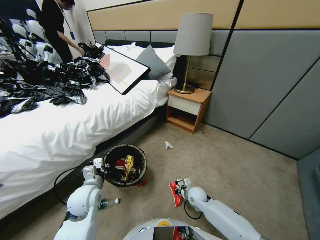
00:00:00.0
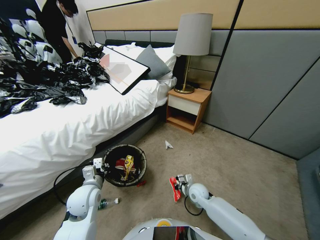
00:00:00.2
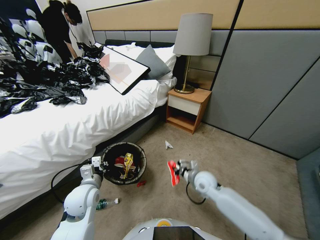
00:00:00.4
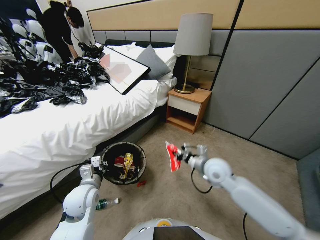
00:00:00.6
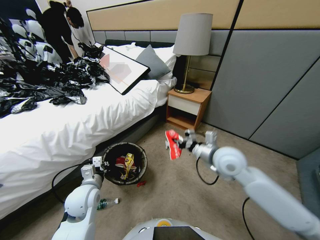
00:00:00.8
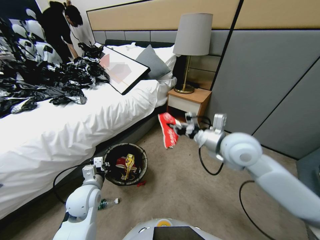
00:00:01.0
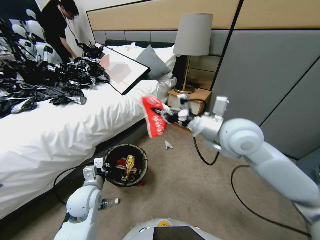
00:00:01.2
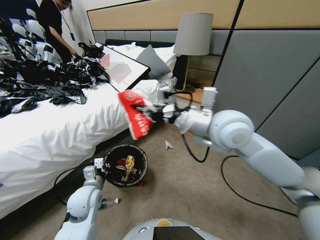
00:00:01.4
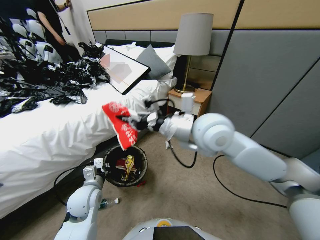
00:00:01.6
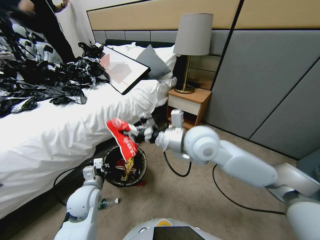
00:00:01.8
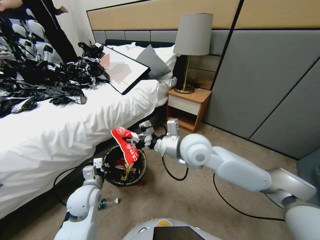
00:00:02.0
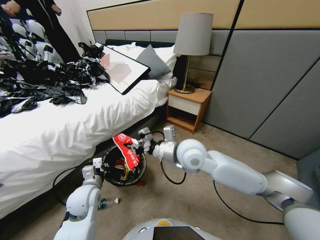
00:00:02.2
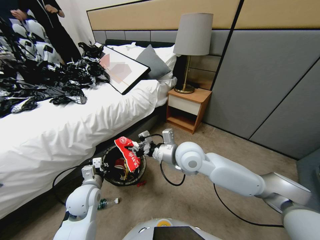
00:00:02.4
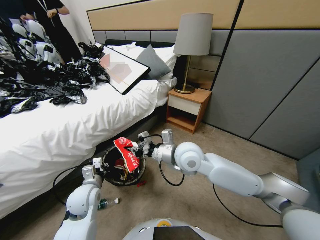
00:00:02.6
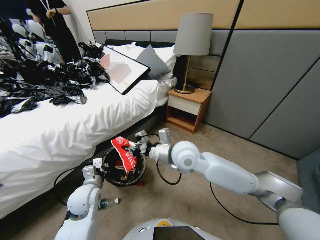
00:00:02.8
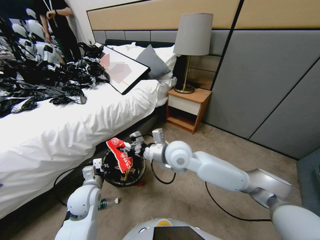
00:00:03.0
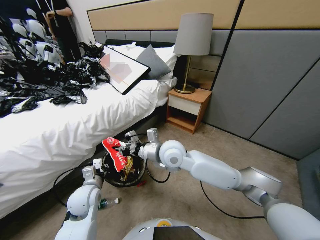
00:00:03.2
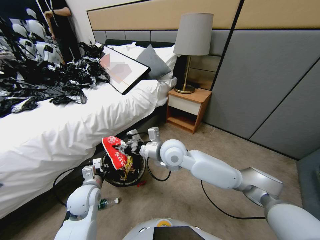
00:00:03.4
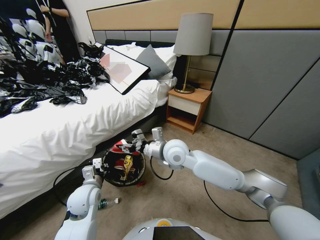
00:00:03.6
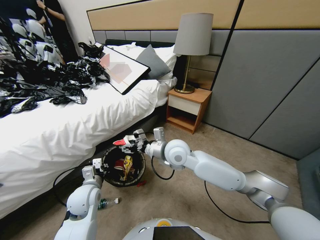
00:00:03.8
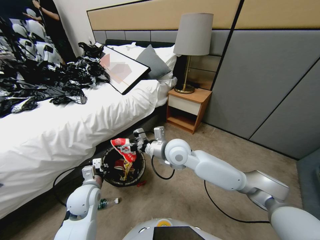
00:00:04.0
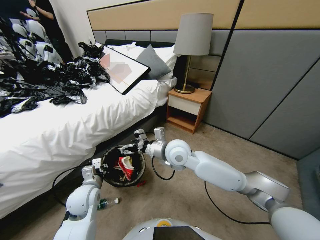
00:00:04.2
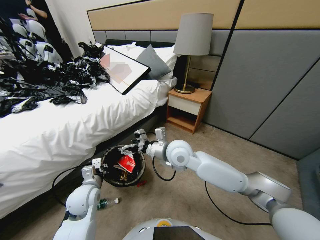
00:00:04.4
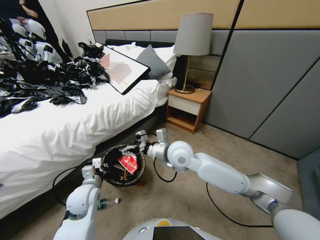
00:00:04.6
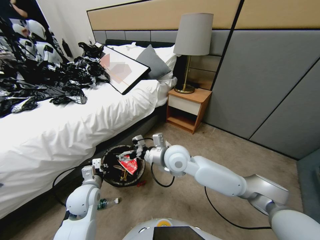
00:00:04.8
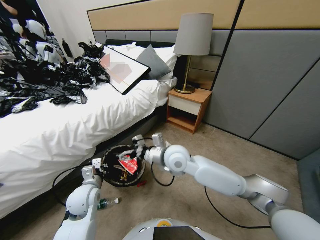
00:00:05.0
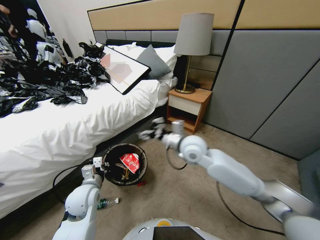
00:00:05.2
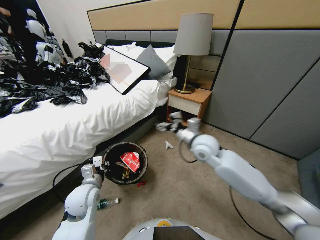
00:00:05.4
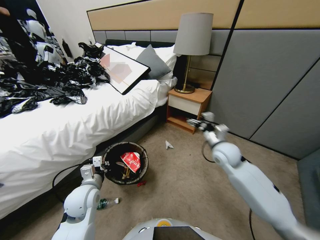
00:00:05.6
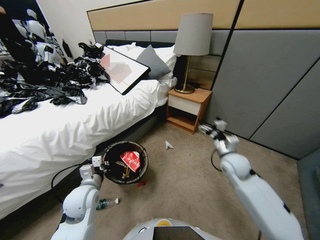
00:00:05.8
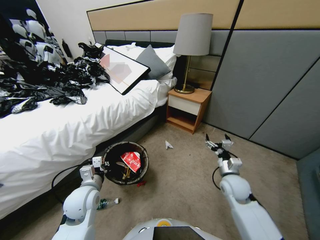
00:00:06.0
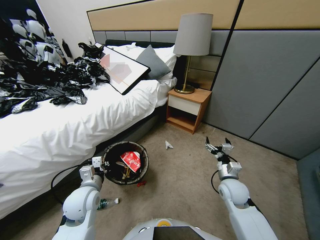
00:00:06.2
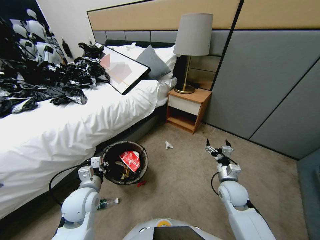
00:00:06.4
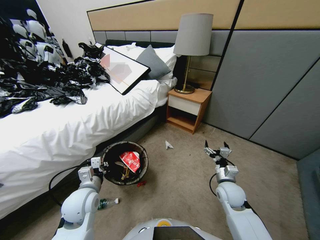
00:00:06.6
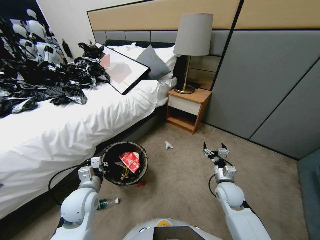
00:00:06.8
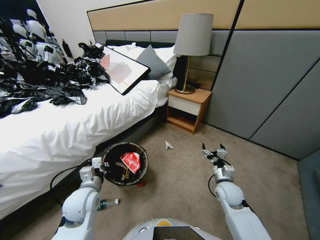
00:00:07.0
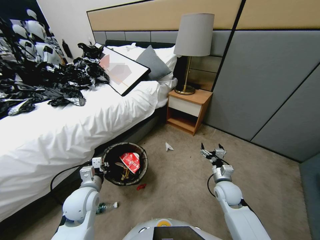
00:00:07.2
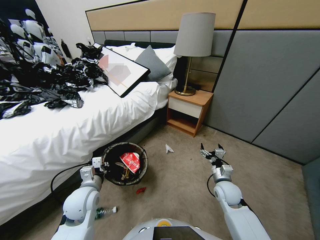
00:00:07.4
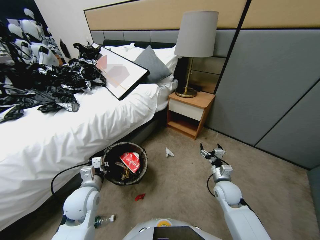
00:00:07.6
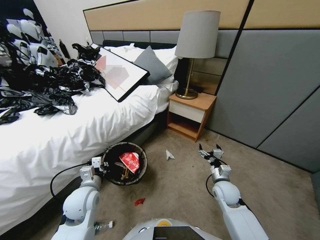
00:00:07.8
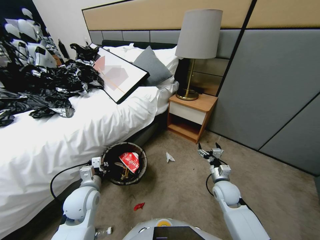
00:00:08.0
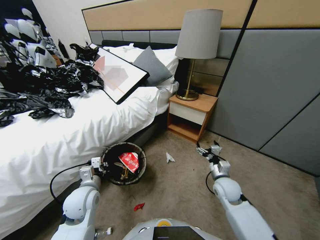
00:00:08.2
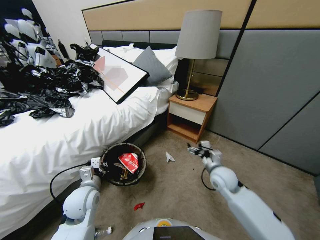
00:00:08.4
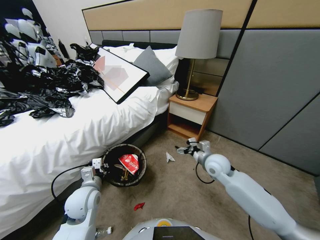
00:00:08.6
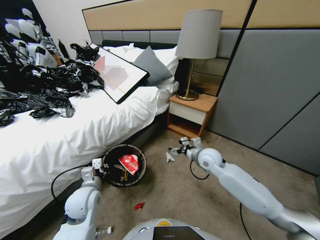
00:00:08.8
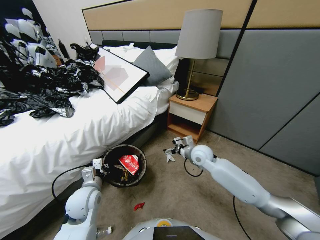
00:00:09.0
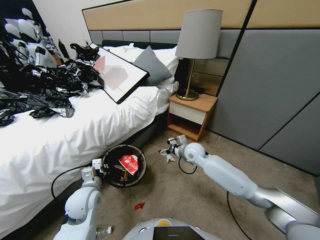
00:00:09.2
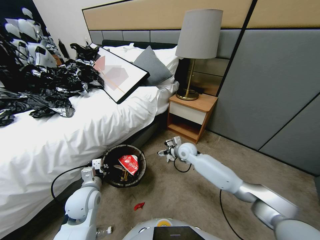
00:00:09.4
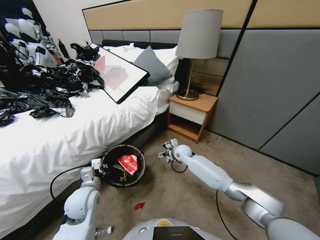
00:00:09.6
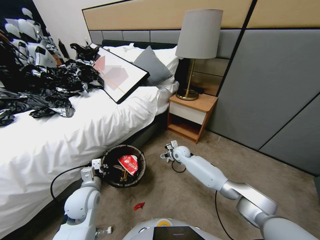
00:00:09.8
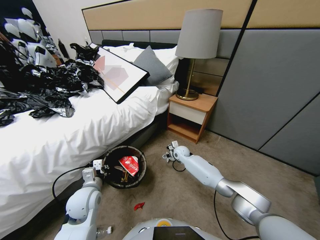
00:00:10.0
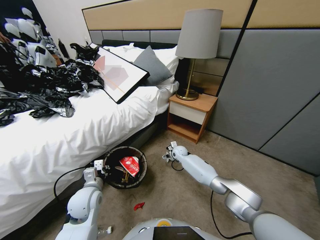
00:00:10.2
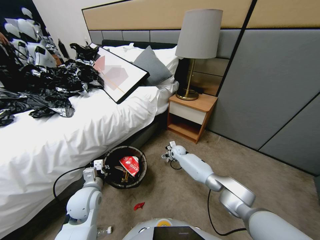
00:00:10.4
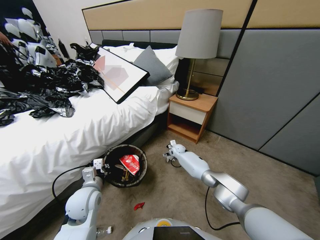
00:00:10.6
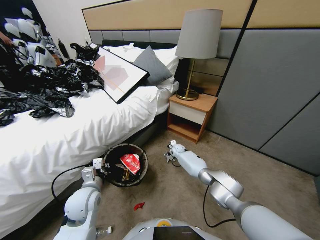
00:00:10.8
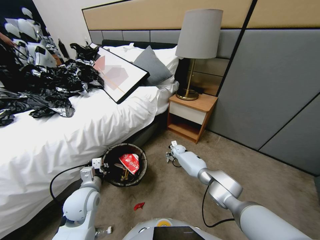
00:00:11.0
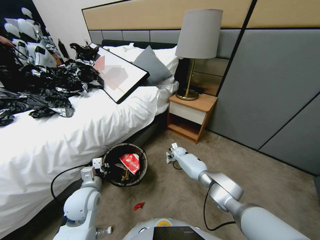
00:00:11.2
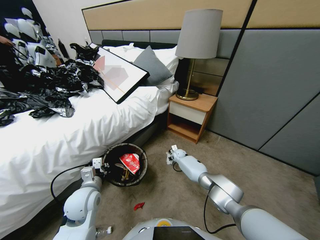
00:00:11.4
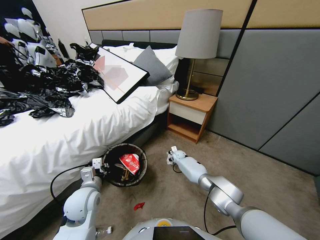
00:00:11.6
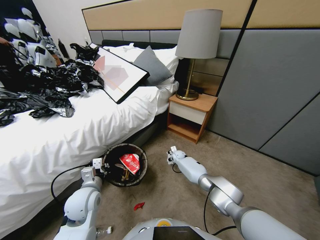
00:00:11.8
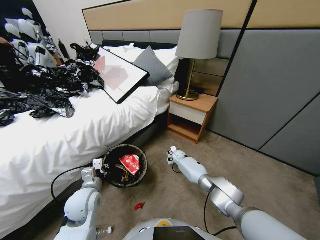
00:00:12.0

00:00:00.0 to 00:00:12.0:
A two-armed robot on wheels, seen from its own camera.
Task of the whole recording: Pick up the trash bin, then pick up the garbage from the floor and place it into the trash bin.
00:00:00.0 to 00:00:01.6: The right gripper moves upward, roughly 40 cm.
00:00:01.6 to 00:00:03.0: The right gripper heads downward and to the left, covering approximately 15 cm.
00:00:03.0 to 00:00:04.4: The right gripper opens up.
00:00:04.4 to 00:00:06.0: The right gripper travels to the right and downward by about 25 cm.
00:00:07.6 to 00:00:09.0: The right gripper travels forward, to the left and upward by about 20 cm.
00:00:09.0 to 00:00:10.4: The right gripper goes some 20 cm downward and forward.
00:00:10.4 to 00:00:12.0: The right gripper closes.

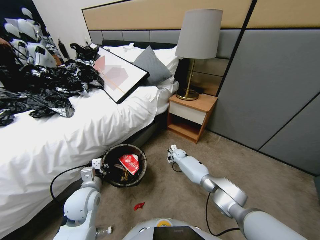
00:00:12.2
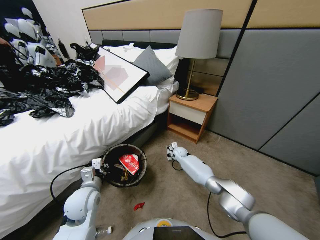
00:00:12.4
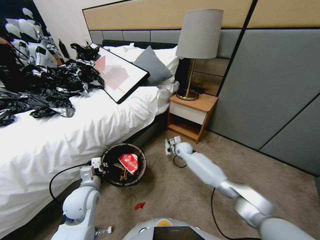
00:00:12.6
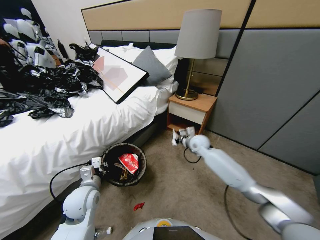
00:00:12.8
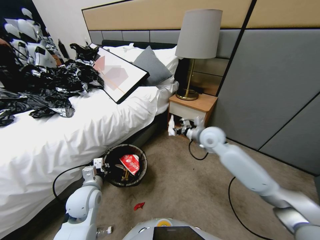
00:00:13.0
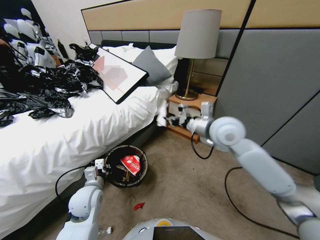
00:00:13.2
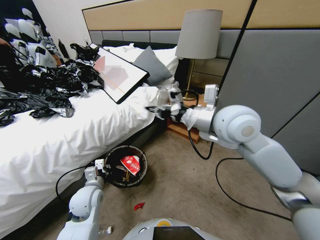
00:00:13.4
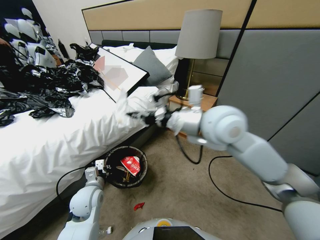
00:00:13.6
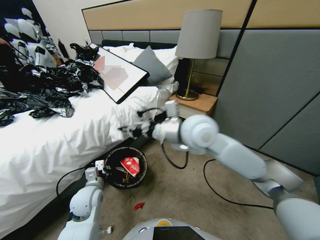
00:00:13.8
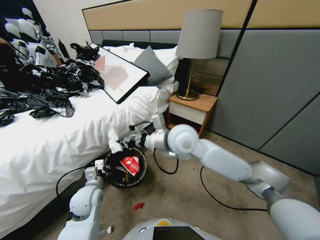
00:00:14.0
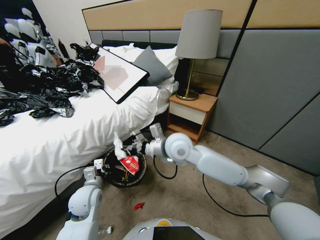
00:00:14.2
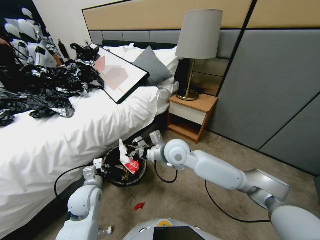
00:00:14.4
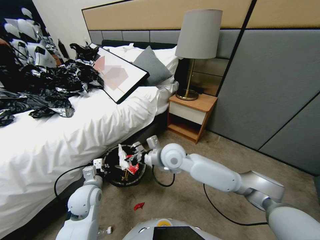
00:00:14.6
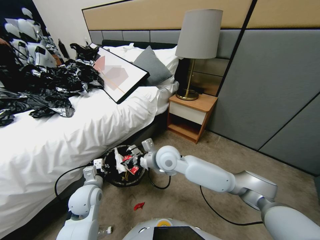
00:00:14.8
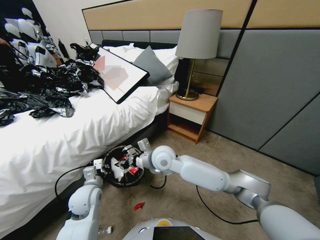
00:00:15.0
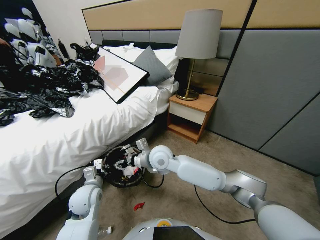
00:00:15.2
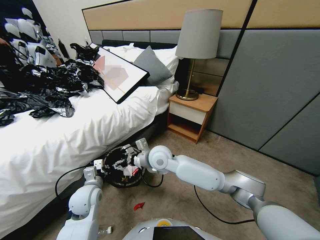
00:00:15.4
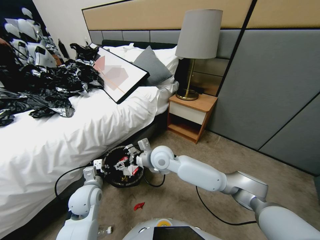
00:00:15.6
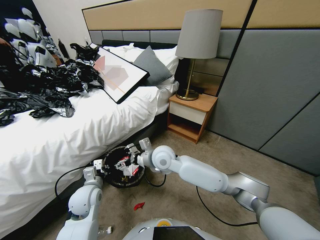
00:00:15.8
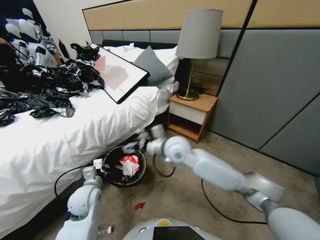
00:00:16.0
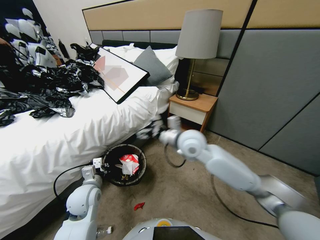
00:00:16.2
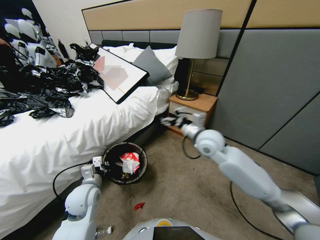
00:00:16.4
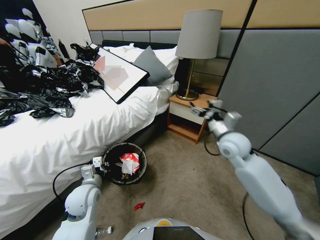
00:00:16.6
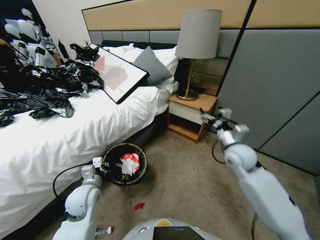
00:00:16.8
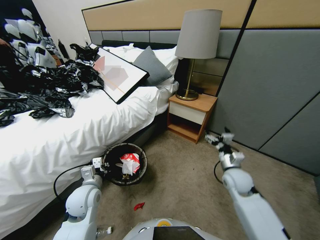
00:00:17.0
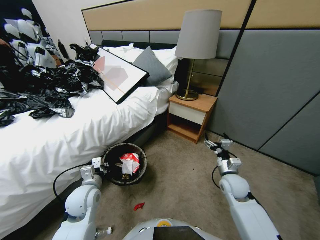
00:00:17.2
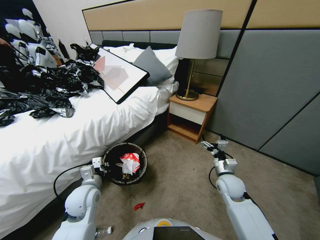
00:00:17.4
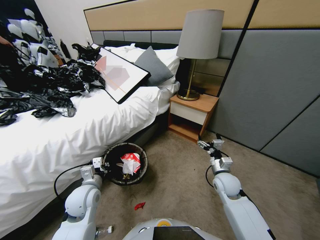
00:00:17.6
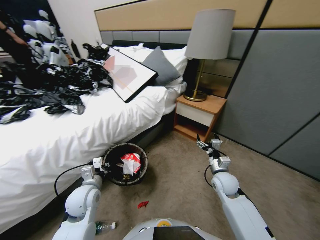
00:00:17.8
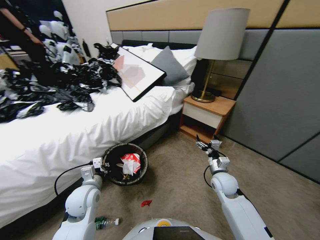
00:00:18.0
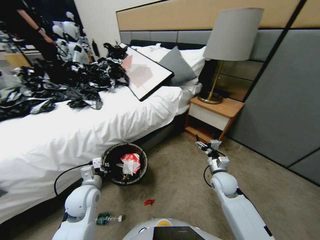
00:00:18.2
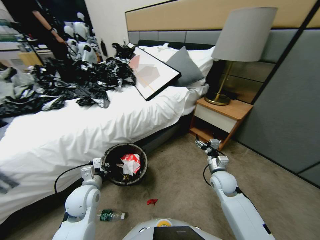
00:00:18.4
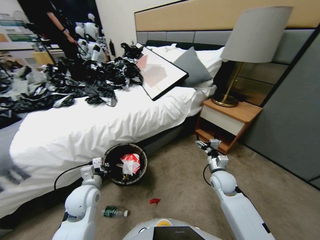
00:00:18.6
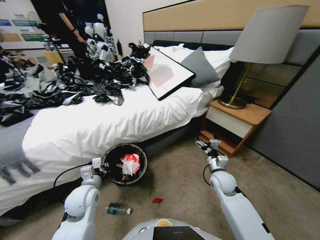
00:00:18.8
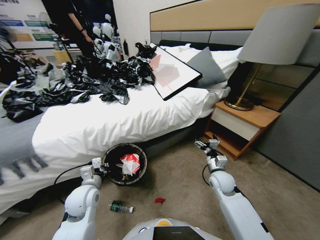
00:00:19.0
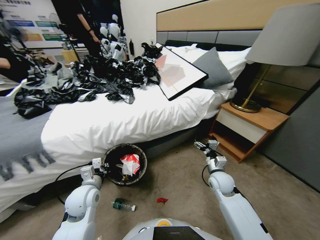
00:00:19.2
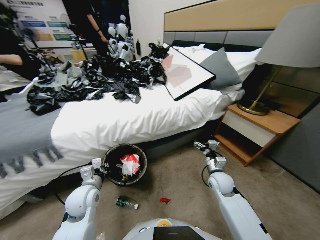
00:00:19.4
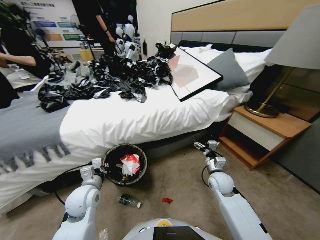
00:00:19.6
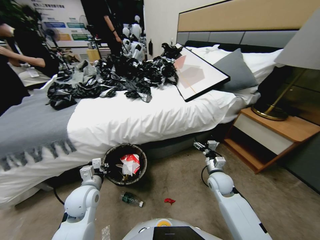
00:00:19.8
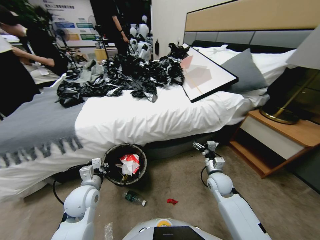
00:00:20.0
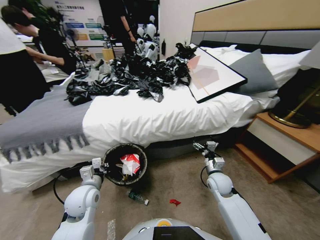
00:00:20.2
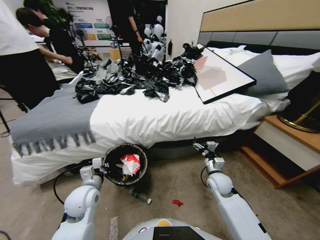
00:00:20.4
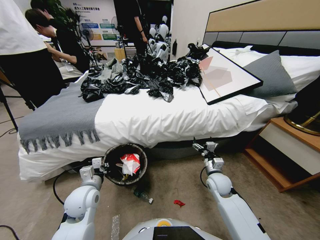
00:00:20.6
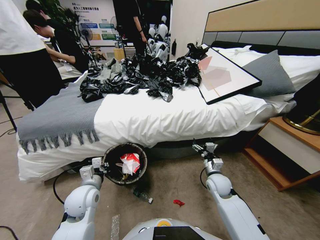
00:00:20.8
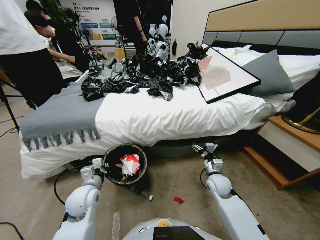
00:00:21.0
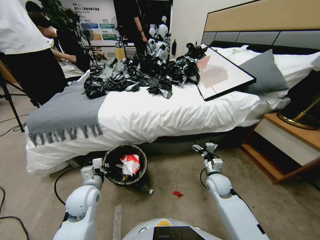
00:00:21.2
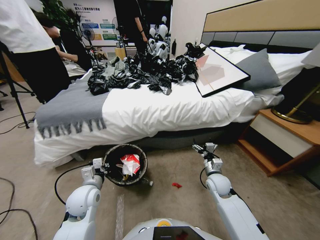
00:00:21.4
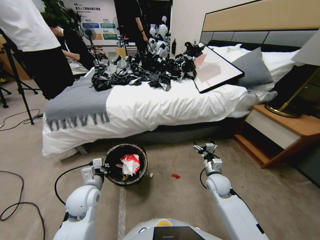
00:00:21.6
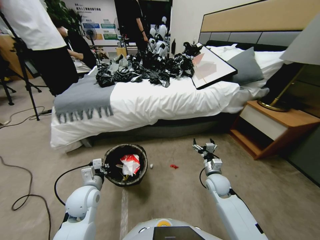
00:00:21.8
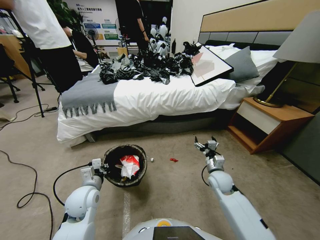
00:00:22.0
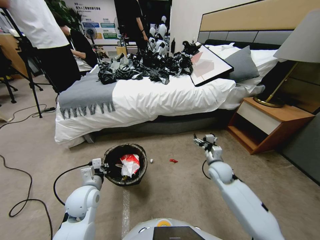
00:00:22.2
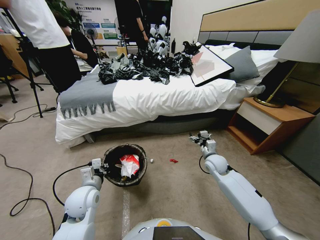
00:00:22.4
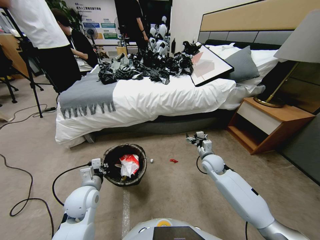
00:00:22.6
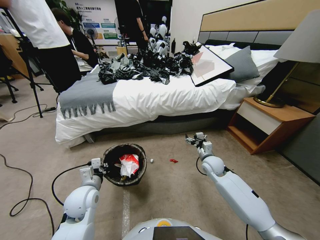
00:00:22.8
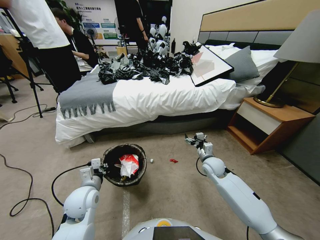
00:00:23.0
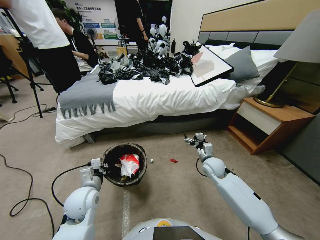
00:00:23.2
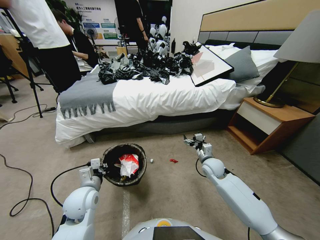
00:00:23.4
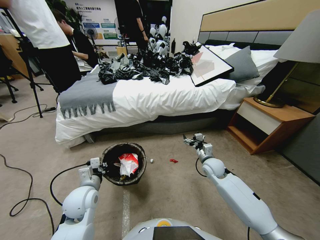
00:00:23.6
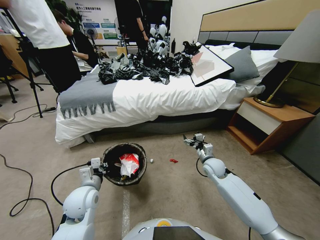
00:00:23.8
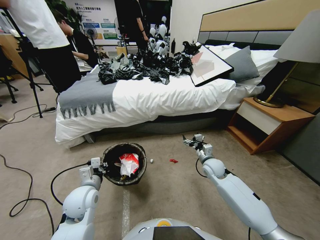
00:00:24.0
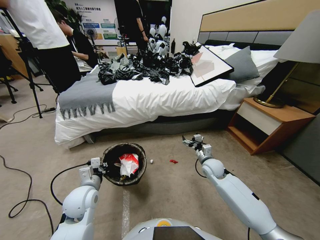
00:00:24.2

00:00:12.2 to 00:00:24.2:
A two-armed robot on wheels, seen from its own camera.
Task of the whole recording: Pick up the trash bin, then pick up the garbage from the floor and place it into the trash bin.
00:00:12.2 to 00:00:13.8: The right gripper goes approximately 40 cm upward and backward.
00:00:13.8 to 00:00:15.2: The right gripper travels downward and to the left by about 15 cm, and opens its fingers.
00:00:15.2 to 00:00:16.6: The right gripper travels to the right by some 30 cm, and opens up.
00:00:16.6 to 00:00:18.2: The right gripper shifts about 15 cm downward.
00:00:21.2 to 00:00:22.6: The right gripper moves forward, about 10 cm.
00:00:22.6 to 00:00:24.2: The grippers move only a little.
